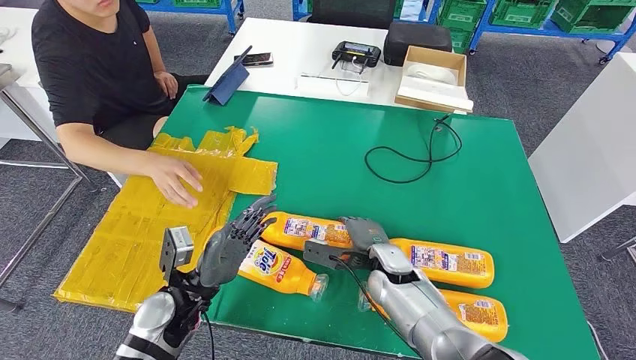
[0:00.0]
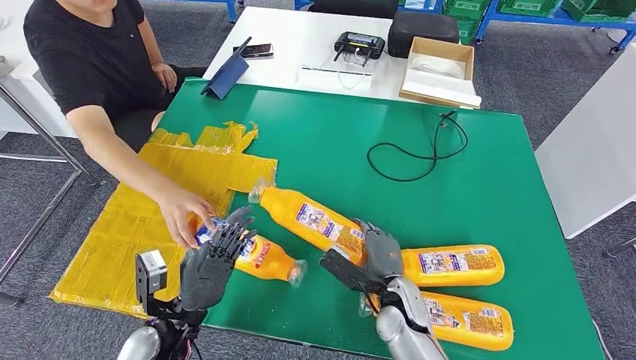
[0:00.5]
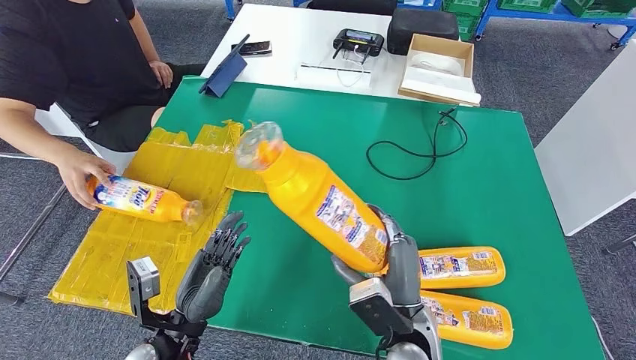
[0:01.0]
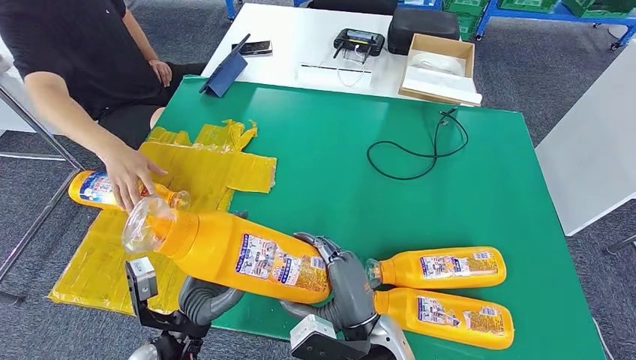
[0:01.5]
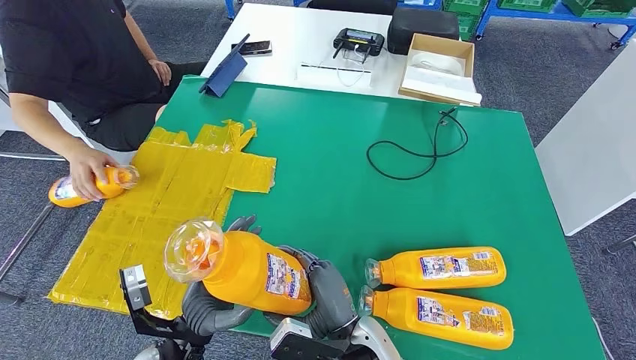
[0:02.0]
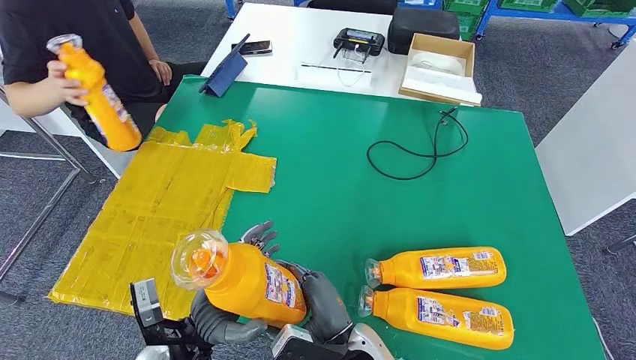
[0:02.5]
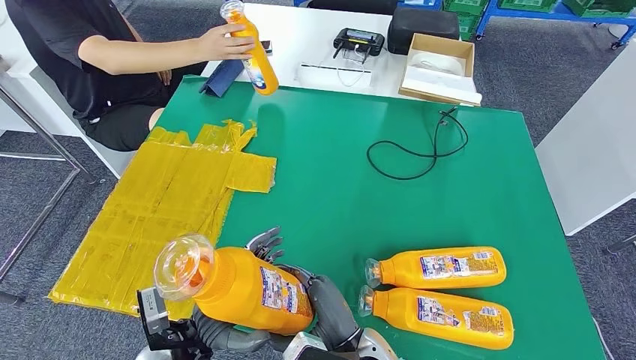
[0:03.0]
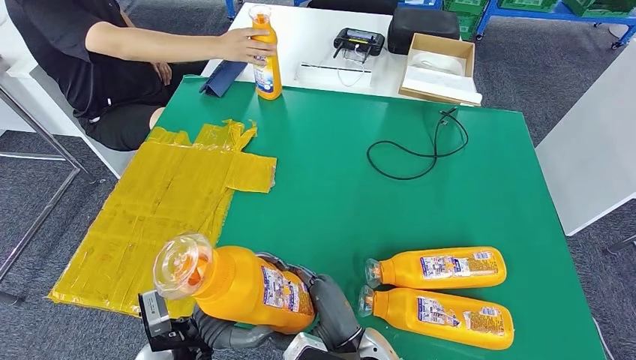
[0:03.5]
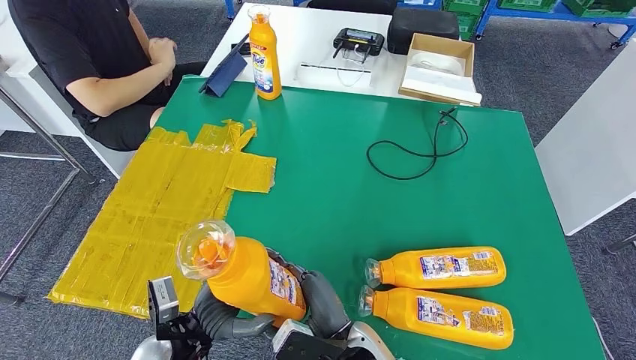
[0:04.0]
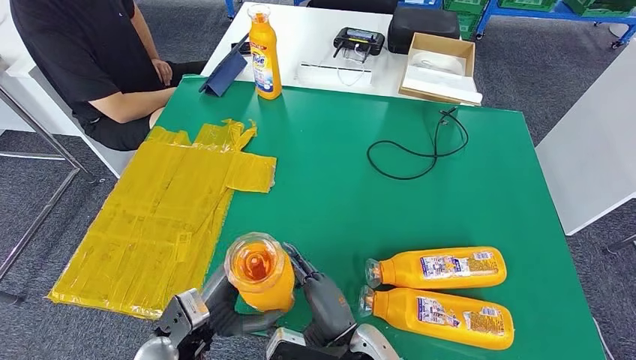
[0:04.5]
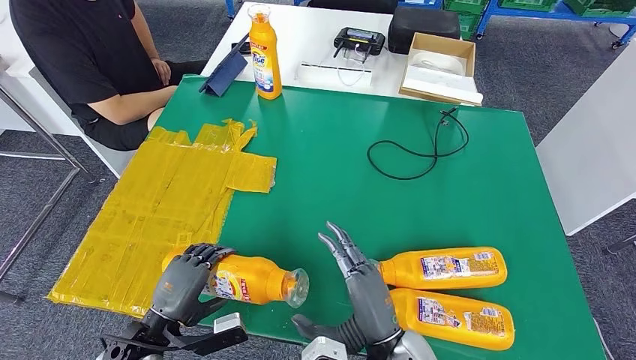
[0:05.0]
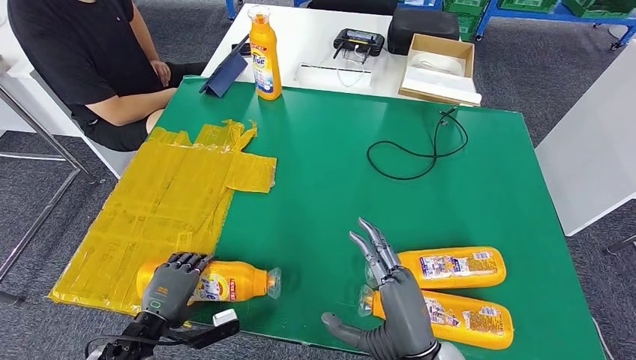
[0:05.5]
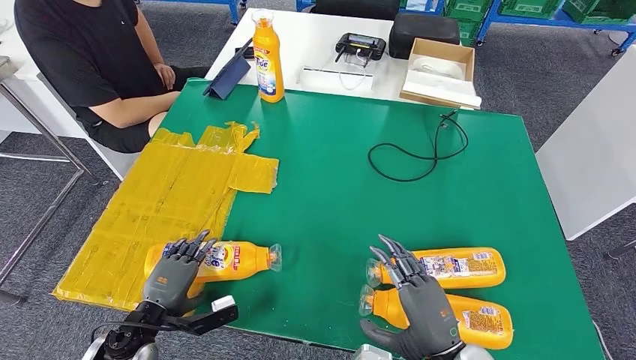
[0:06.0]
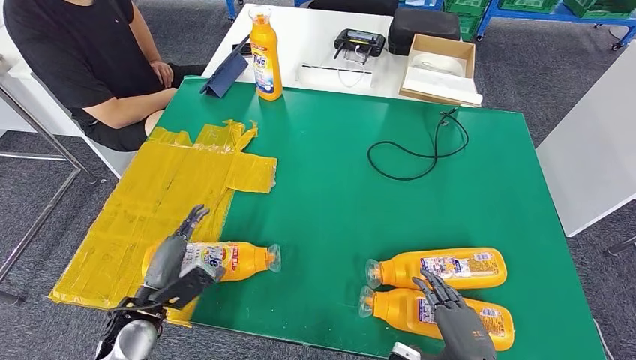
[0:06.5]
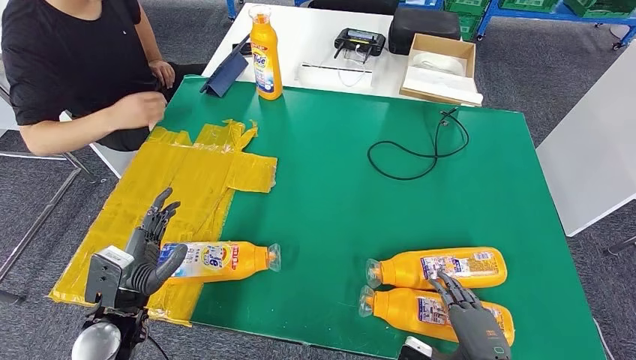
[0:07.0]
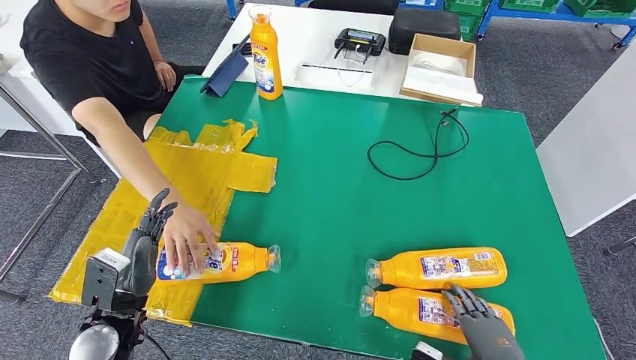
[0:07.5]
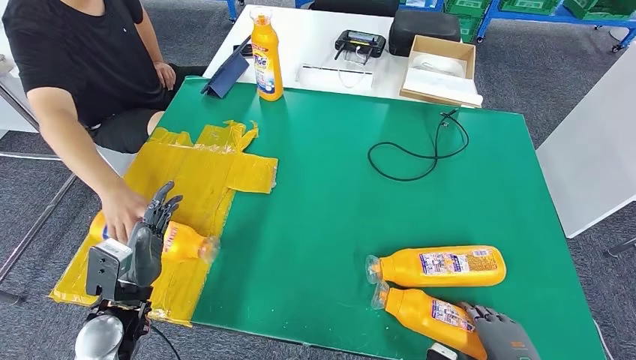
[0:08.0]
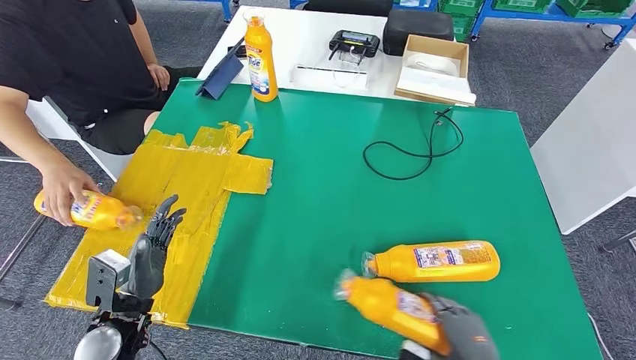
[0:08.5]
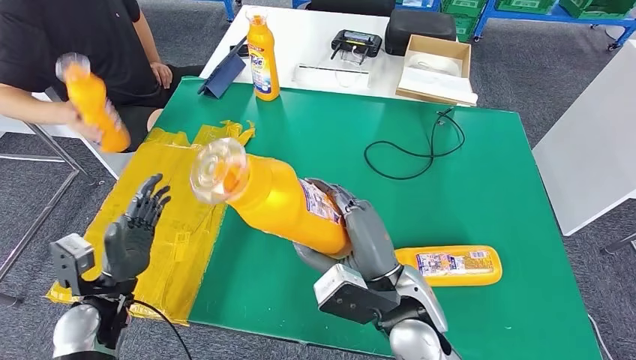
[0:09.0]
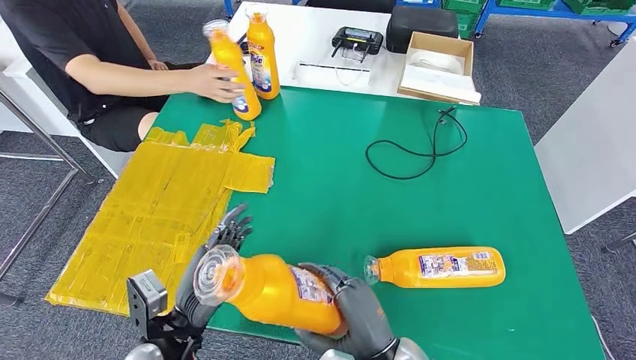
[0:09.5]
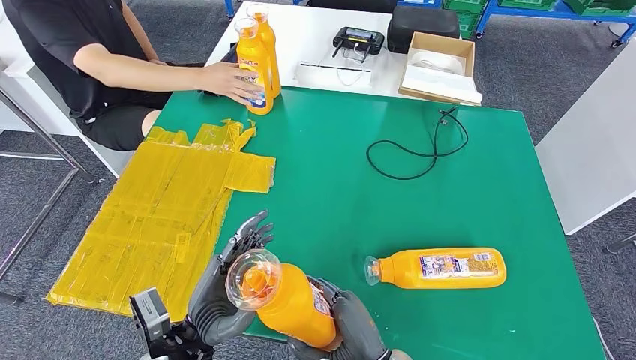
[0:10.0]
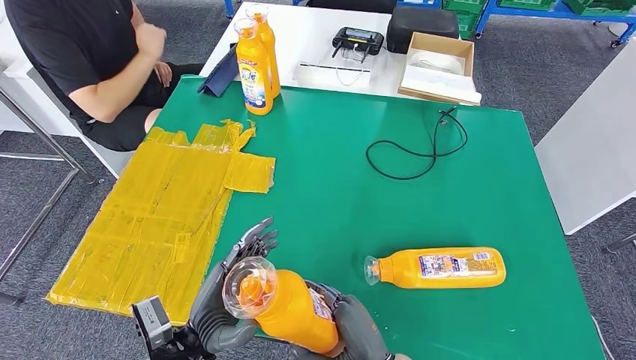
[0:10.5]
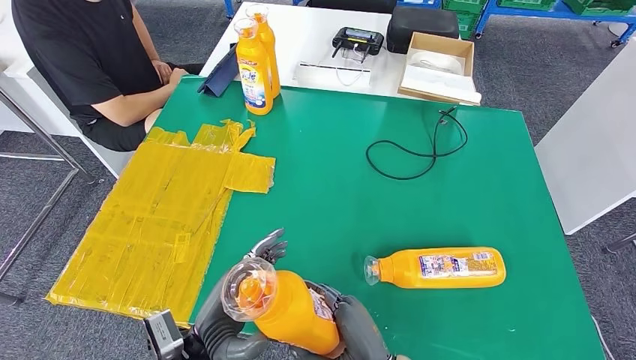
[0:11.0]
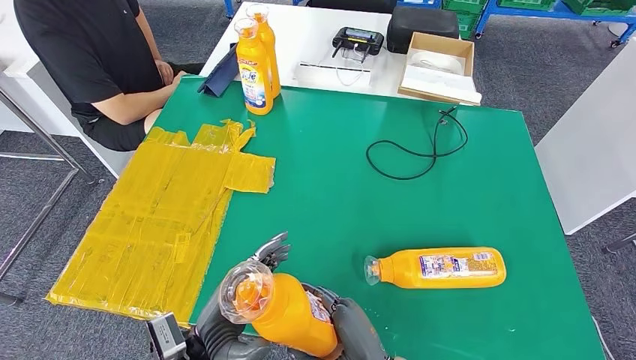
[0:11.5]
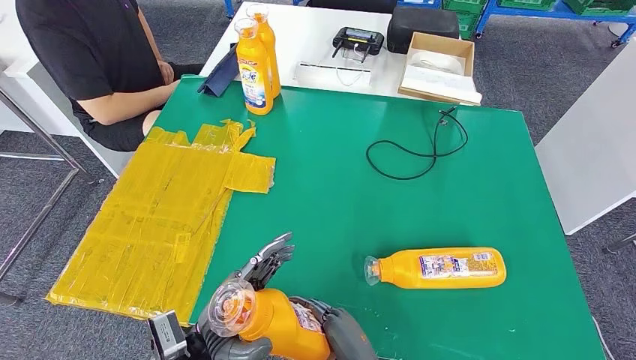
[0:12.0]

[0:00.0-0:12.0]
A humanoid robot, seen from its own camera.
Step, 0:00.5 to 0:01.5: Pick up the bottle from the table.
Step, 0:02.5 to 0:07.0: Flip the bottle to face forward.
Step, 0:07.5 to 0:09.5: Pick up the bottle from the table.
0:10.0 to 0:12.0: The hands move only a little.

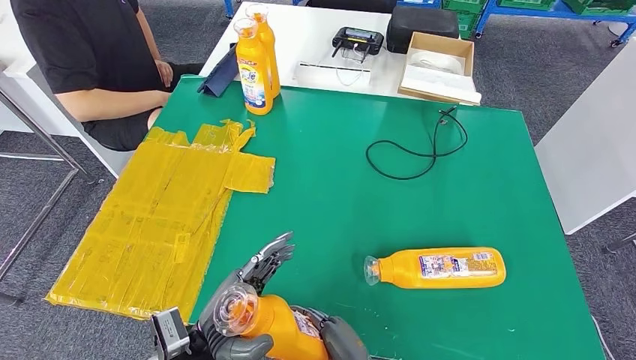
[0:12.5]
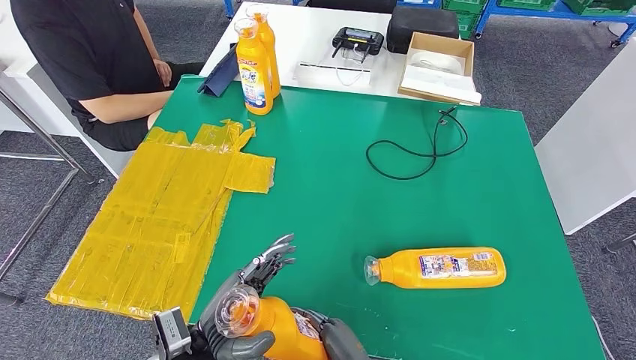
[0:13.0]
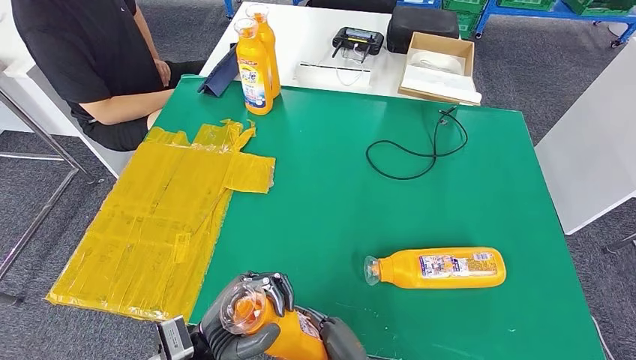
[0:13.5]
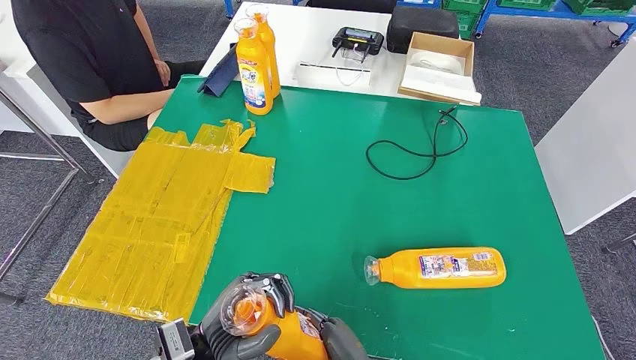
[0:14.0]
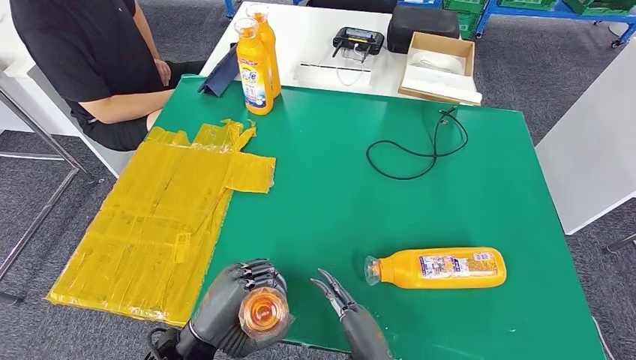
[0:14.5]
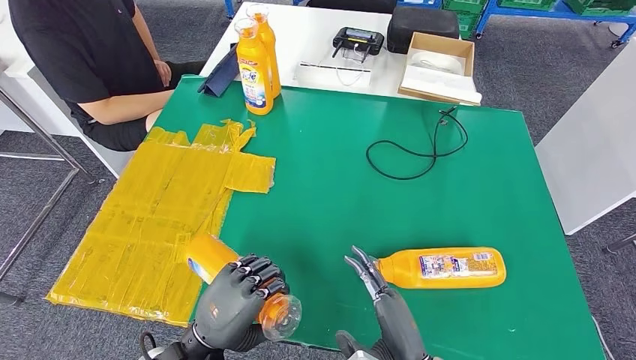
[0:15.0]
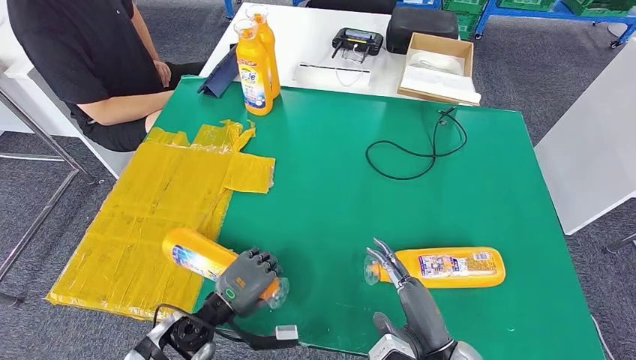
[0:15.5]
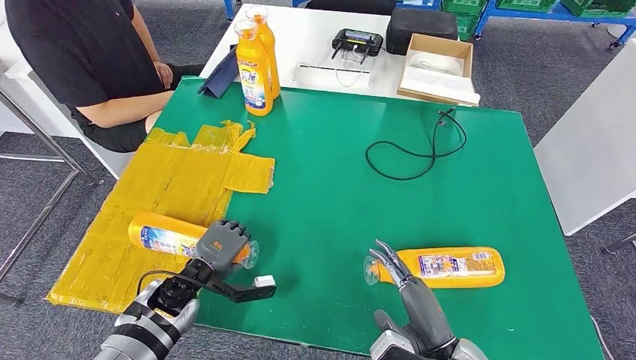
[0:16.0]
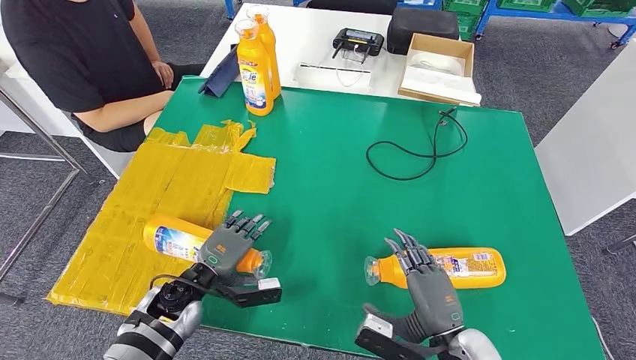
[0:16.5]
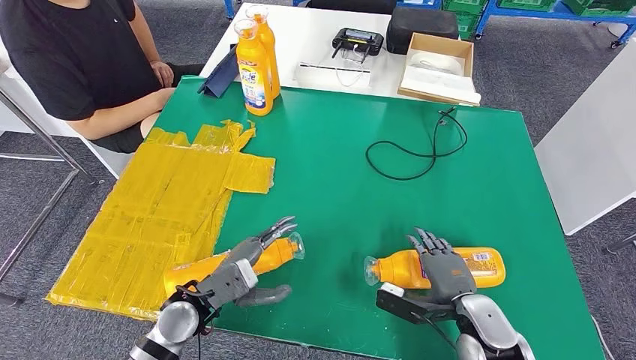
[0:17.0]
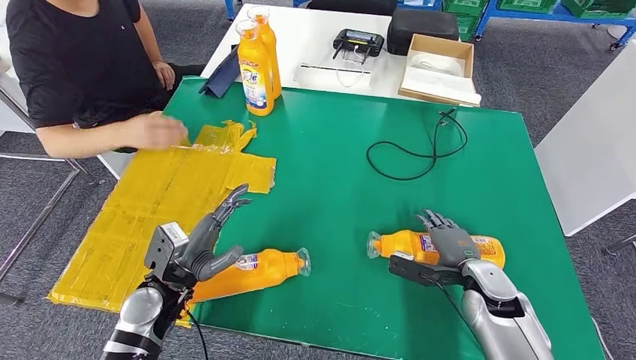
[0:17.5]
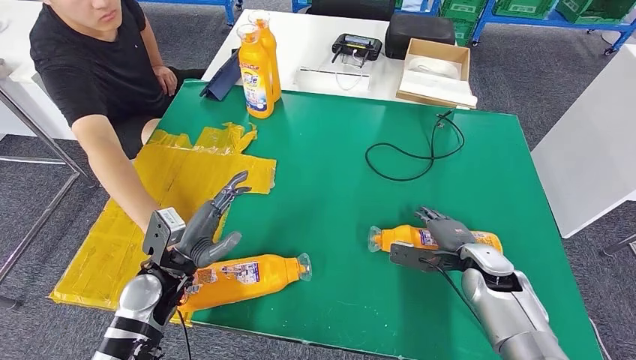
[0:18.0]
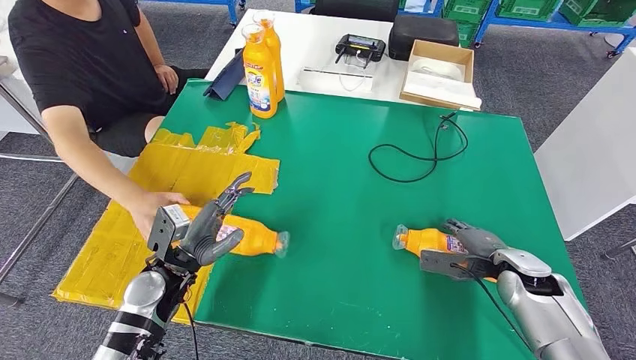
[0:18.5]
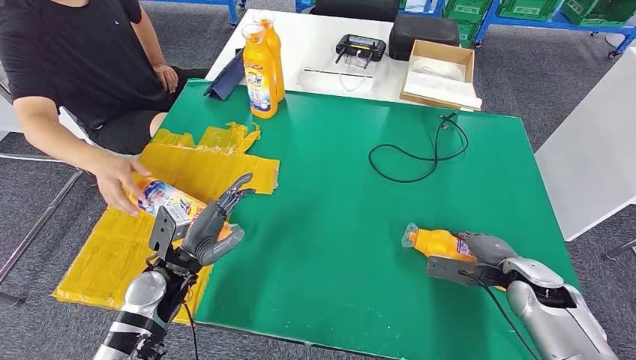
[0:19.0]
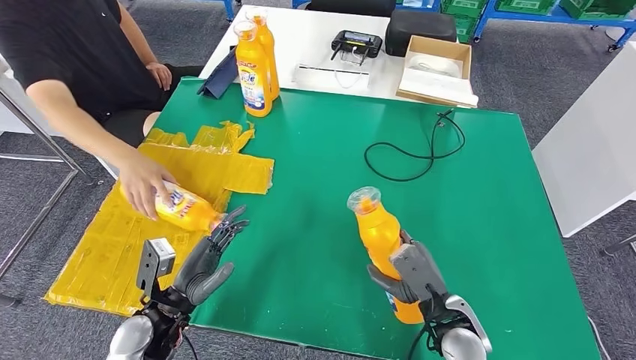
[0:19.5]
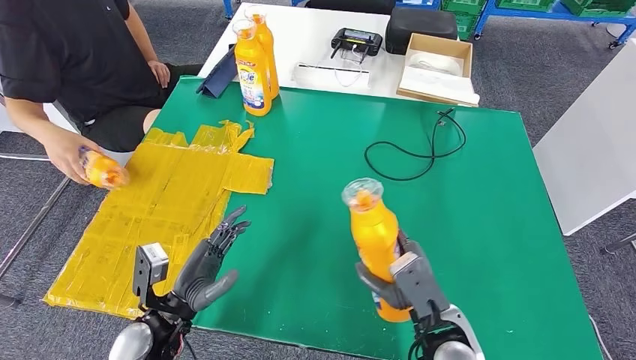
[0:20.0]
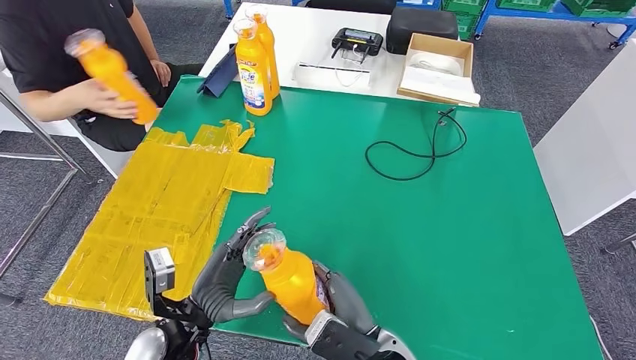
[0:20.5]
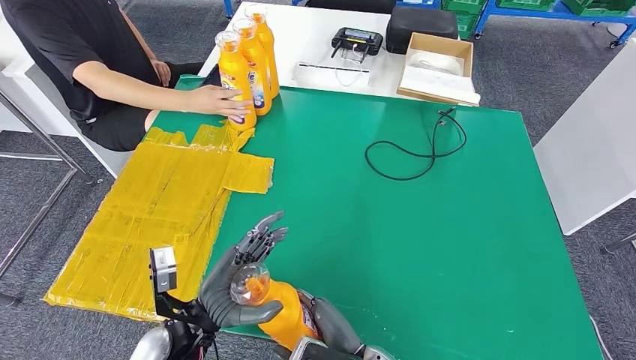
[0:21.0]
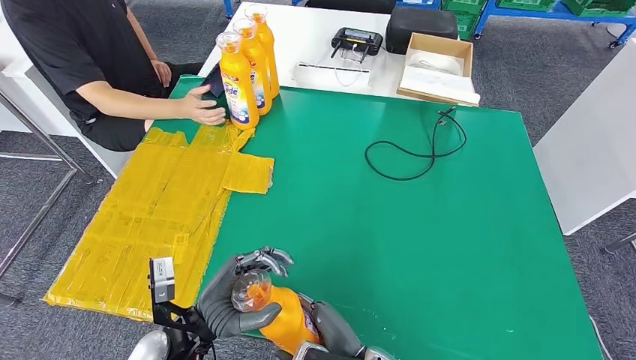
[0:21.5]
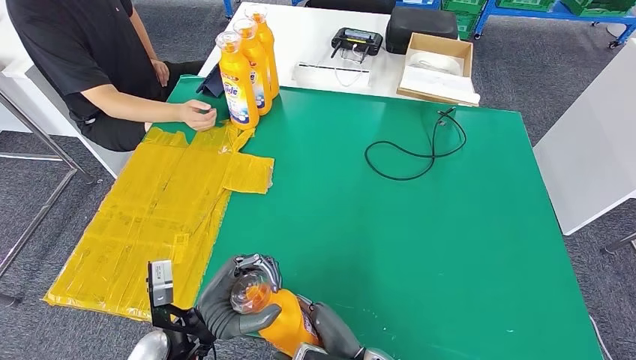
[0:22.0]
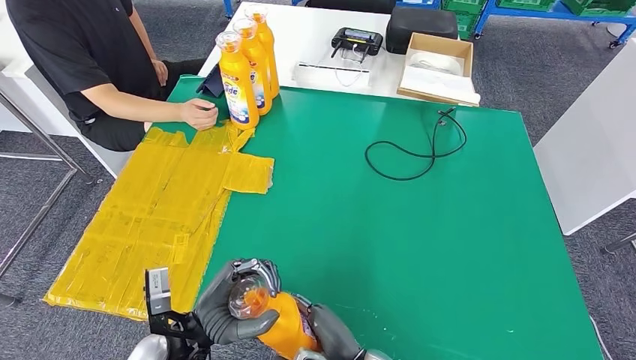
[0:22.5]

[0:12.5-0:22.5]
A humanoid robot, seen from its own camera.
Step, 0:12.5 to 0:17.0: Flip the bottle to face forward.
Step, 0:18.0 to 0:19.5: Pick up the bottle from the table.
0:14.5 to 0:16.5: The right hand moves to the right and forward, roughly 10 cm. Meanwhile the left hand shifts some 15 cm forward and downward.
0:20.5 to 0:22.5: There are only small adjustments of the hands.
